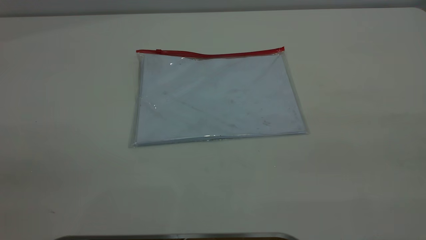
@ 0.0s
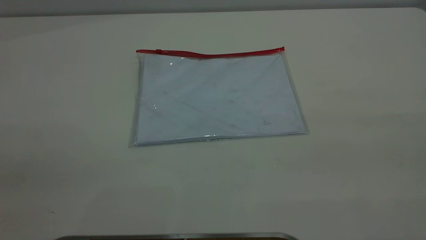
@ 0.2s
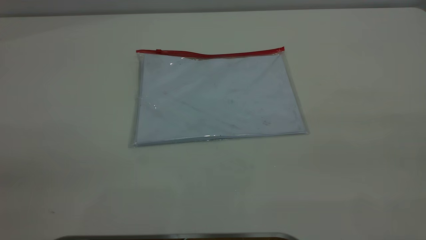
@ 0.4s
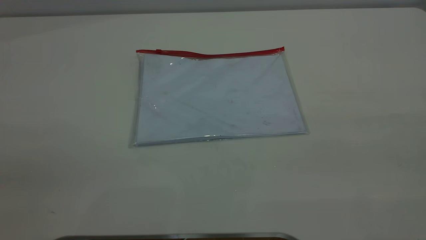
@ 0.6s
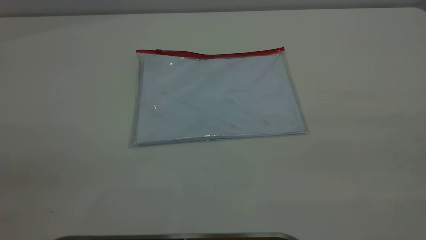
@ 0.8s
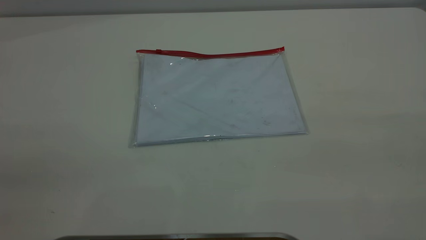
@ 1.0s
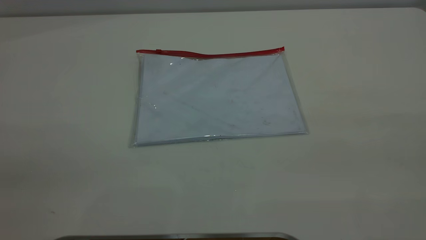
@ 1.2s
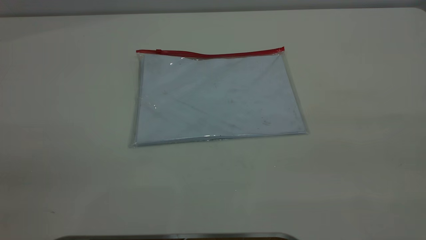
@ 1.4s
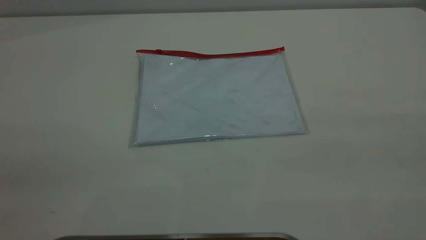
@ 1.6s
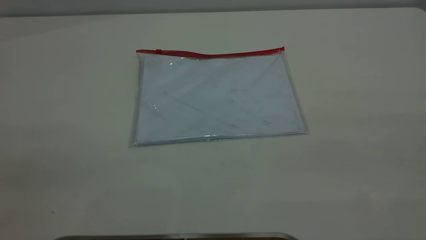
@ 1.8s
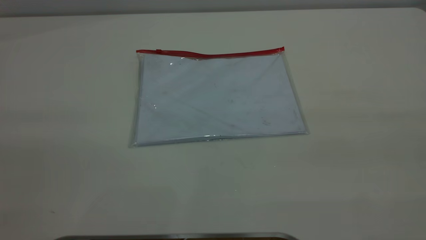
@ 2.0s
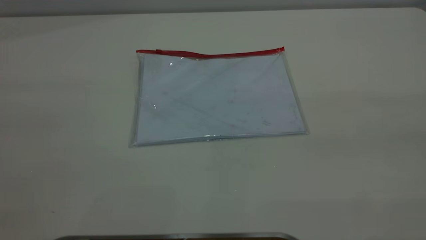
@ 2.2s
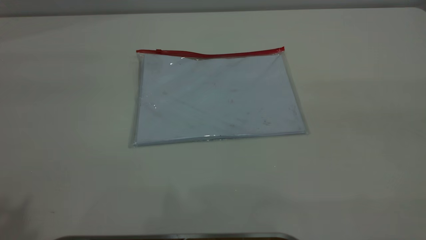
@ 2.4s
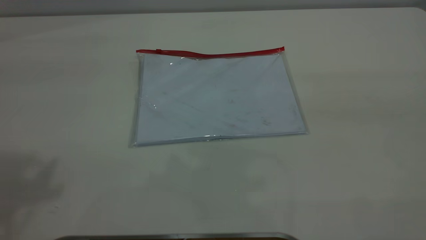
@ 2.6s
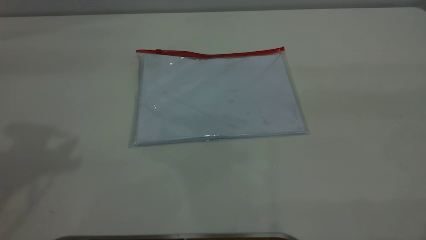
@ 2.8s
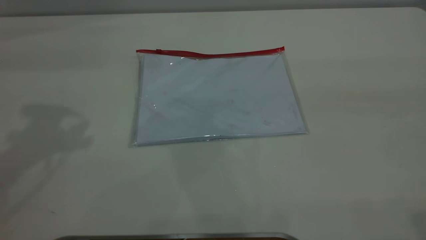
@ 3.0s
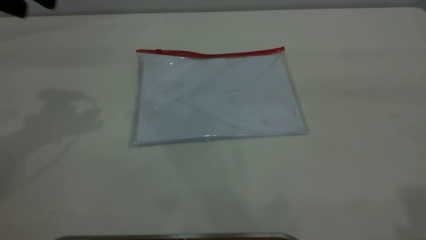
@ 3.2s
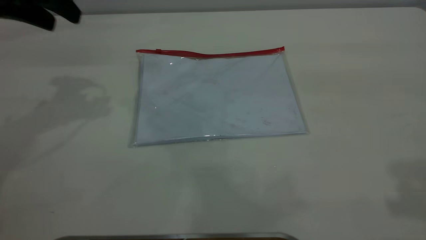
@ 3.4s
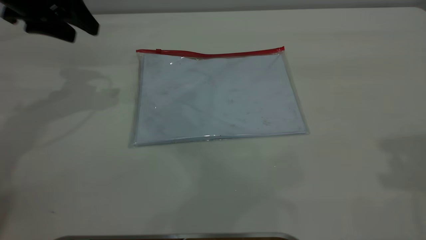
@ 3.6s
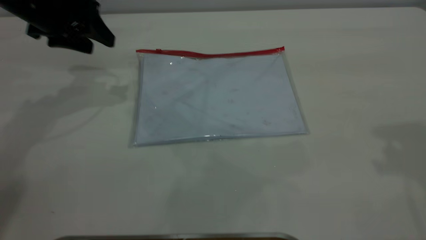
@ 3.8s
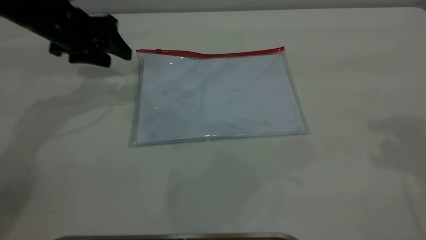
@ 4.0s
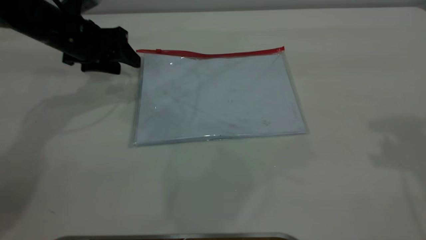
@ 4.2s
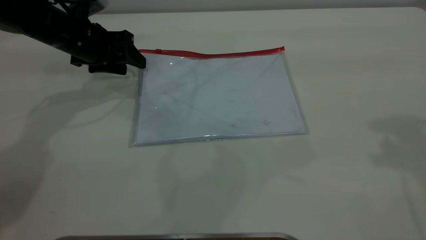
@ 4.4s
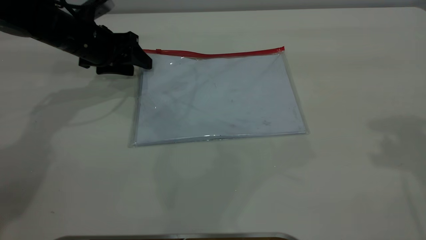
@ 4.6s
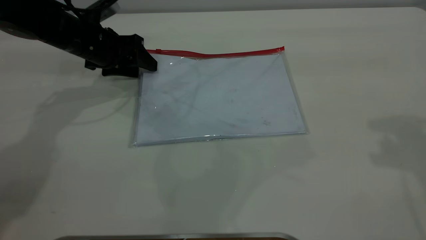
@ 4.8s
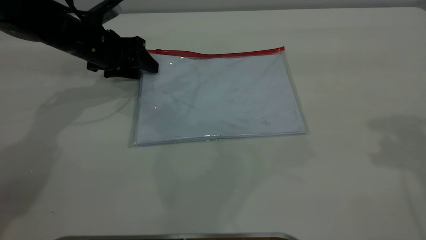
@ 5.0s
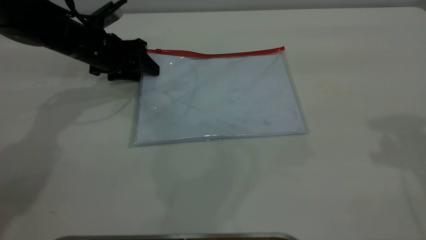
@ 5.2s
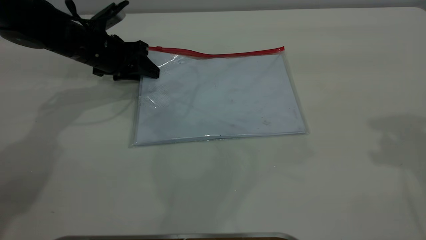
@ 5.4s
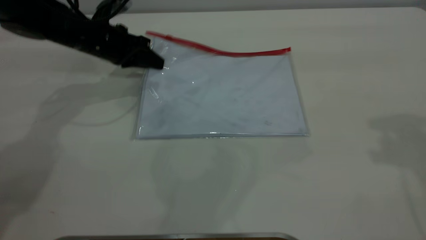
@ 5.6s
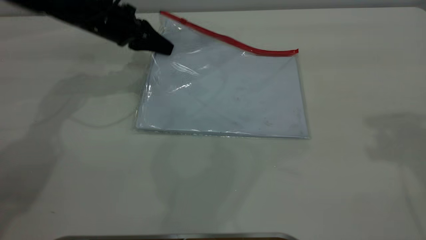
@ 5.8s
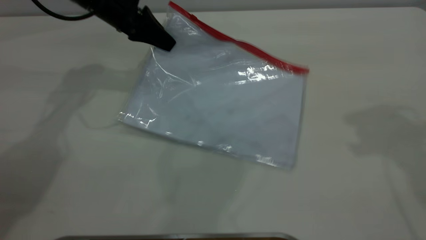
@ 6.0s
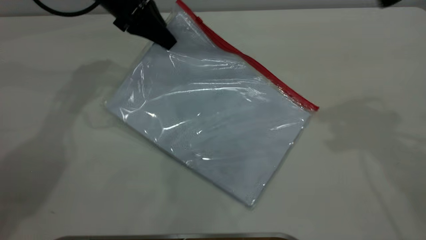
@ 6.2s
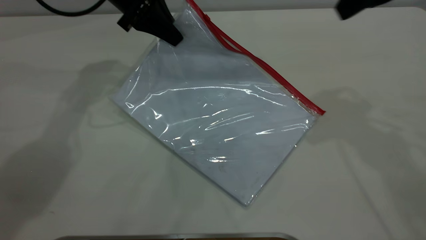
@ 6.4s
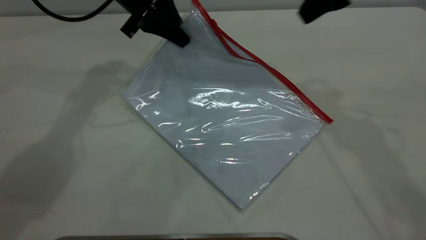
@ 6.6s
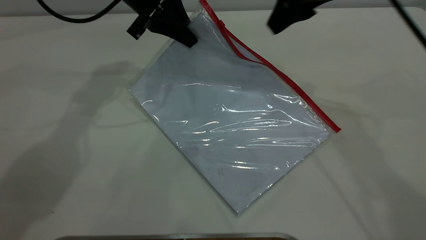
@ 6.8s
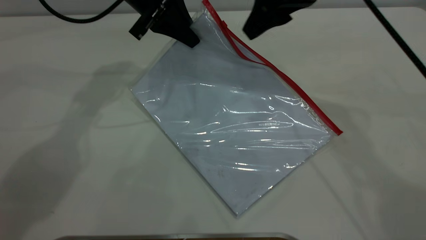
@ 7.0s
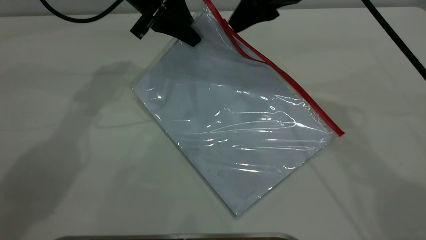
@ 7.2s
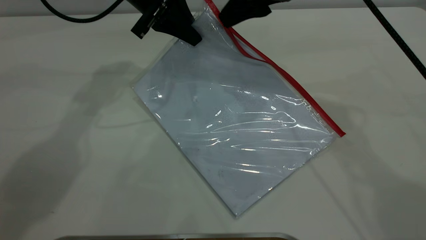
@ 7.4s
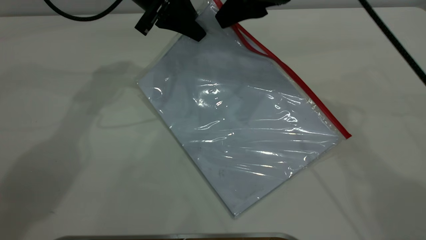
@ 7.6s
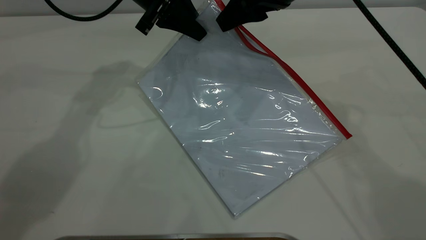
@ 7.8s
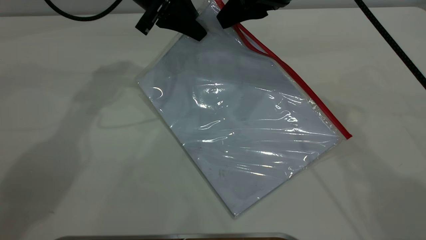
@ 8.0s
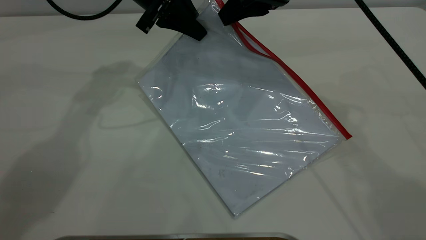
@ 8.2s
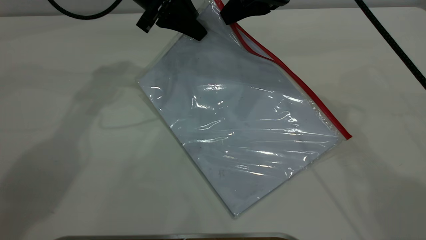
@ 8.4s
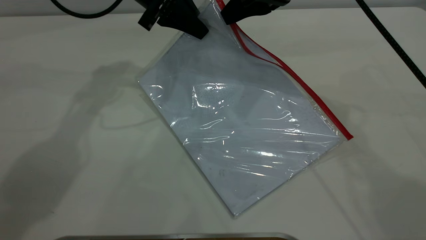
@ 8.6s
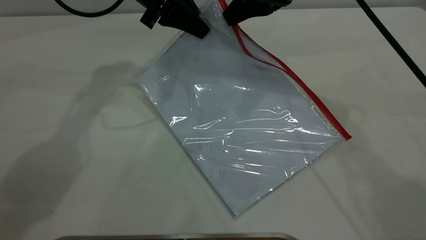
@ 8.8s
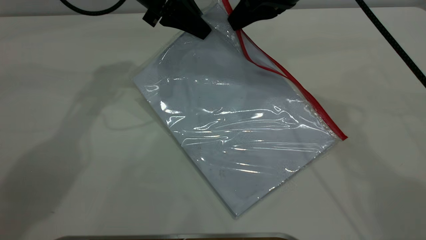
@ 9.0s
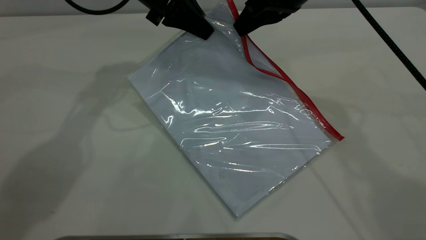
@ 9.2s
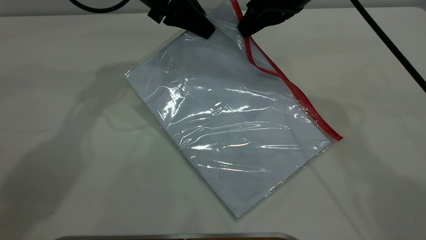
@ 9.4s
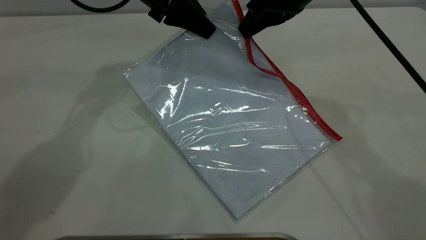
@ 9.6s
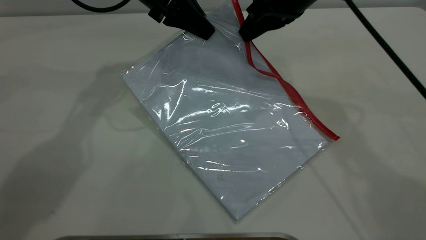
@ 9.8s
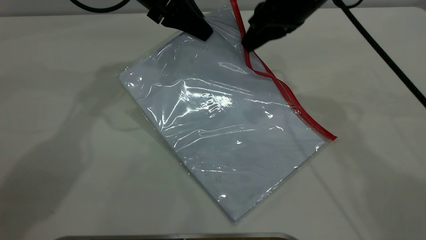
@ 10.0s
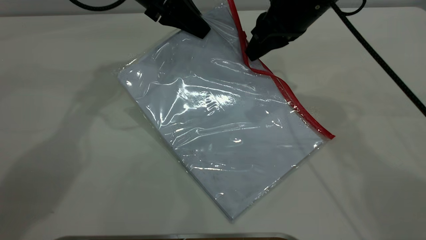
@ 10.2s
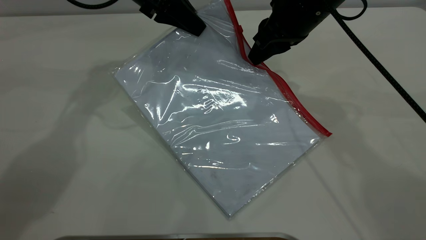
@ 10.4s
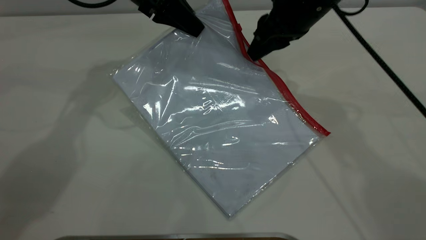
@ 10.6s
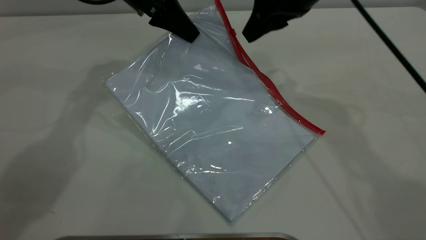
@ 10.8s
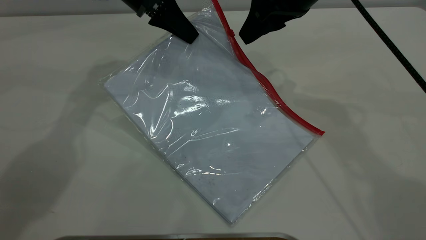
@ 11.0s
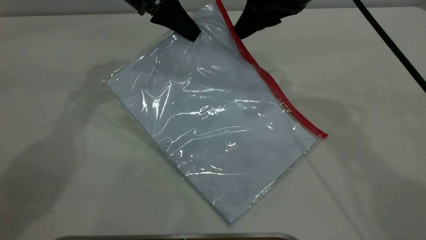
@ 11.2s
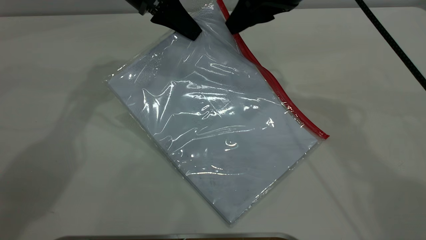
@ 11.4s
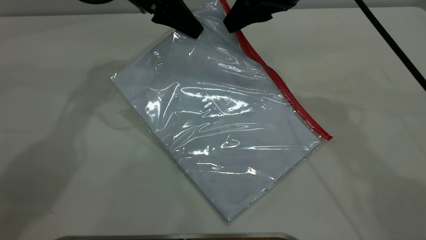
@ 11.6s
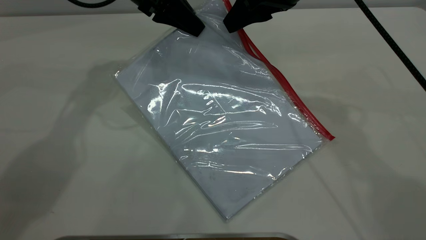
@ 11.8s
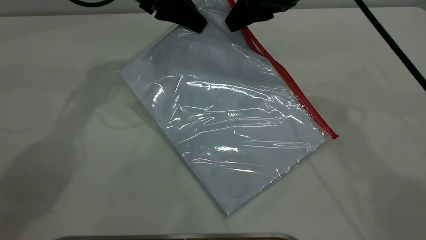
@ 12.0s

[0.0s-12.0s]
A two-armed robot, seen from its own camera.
Step, 0.0s to 5.8s: Pick up the transparent plastic bag with the left gripper.
0.0s to 1.6s: Both grippers stay put.
3.0s to 4.4s: The left gripper shifts about 25 cm downward and forward.
4.4s to 6.0s: The left gripper goes about 10 cm to the right and upward, and closes up.
6.0s to 7.6s: The right gripper heads to the left, downward and forward, covering about 20 cm. Meanwhile the left gripper goes some 5 cm to the right.
7.6s to 9.0s: The right gripper closes.
9.0s to 10.4s: The grippers move only a little.
10.4s to 12.0s: The grippers move only a little.

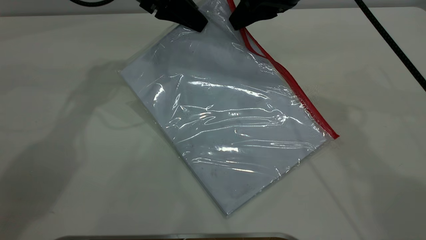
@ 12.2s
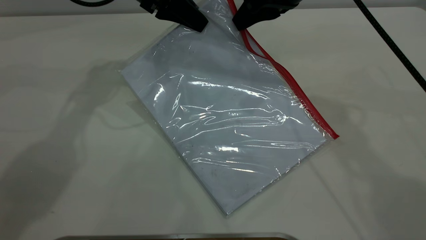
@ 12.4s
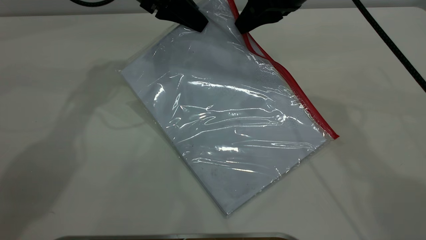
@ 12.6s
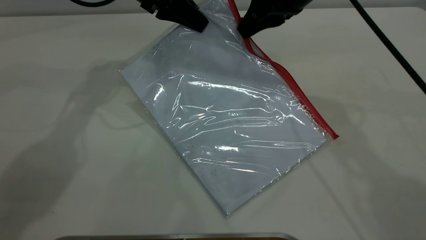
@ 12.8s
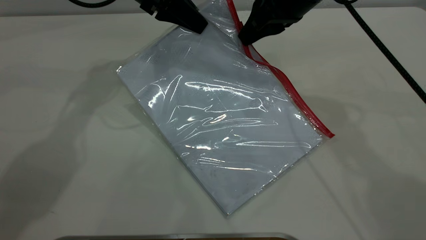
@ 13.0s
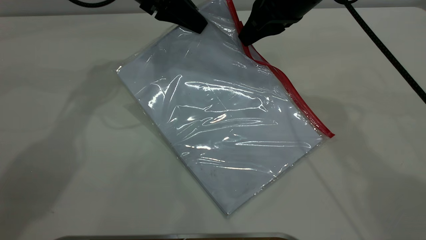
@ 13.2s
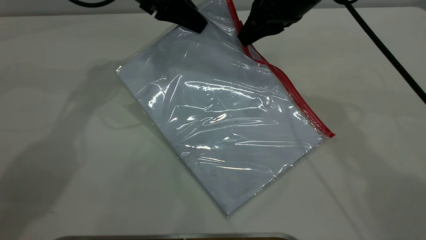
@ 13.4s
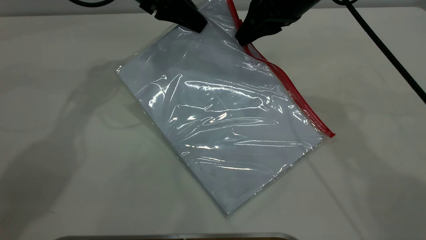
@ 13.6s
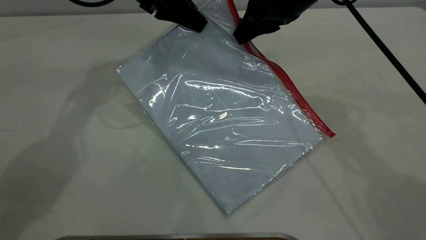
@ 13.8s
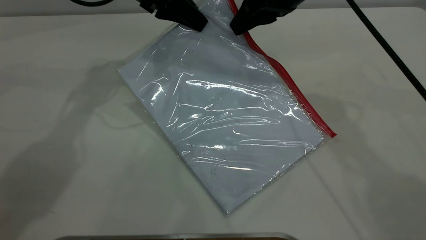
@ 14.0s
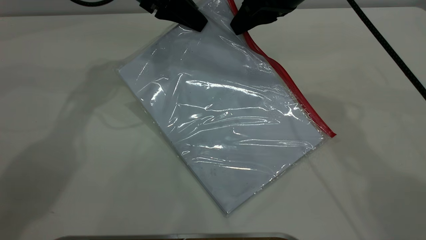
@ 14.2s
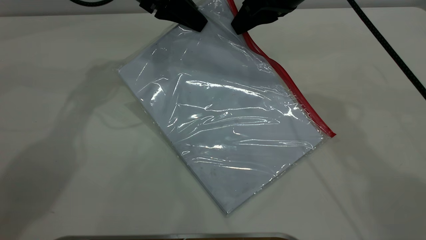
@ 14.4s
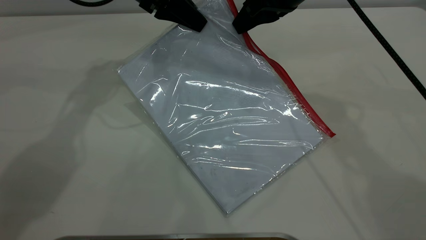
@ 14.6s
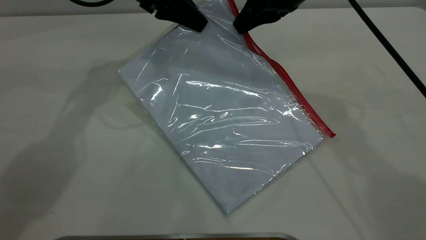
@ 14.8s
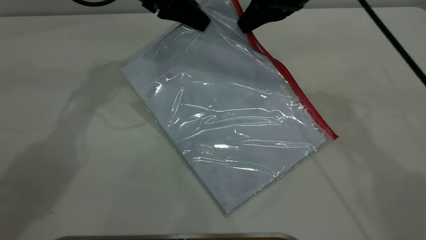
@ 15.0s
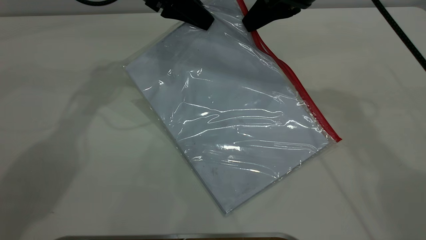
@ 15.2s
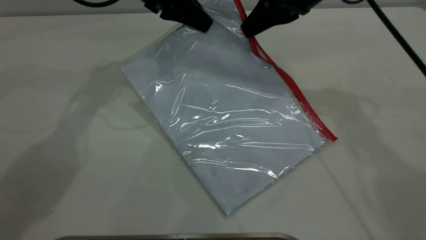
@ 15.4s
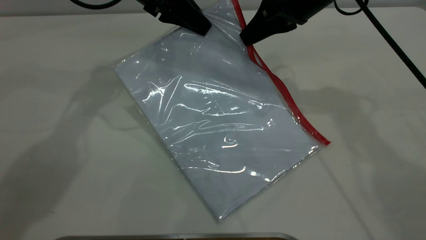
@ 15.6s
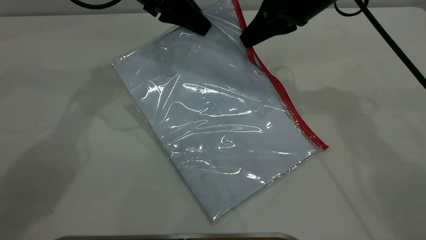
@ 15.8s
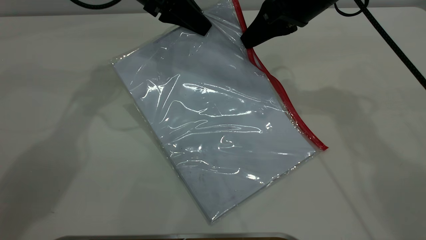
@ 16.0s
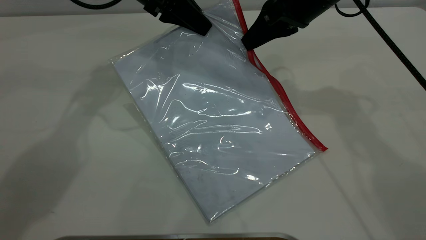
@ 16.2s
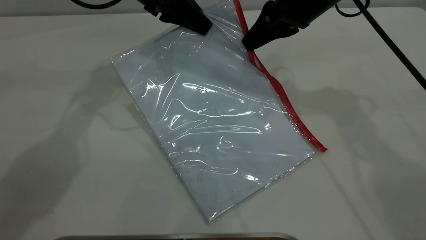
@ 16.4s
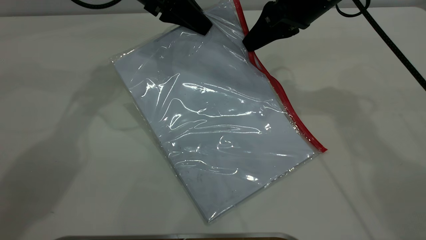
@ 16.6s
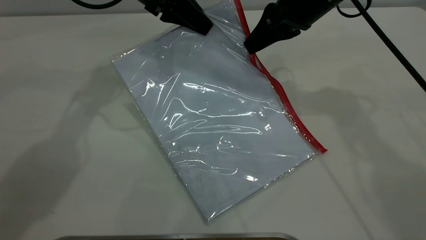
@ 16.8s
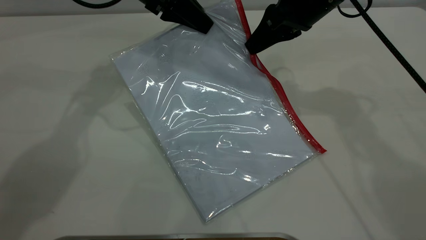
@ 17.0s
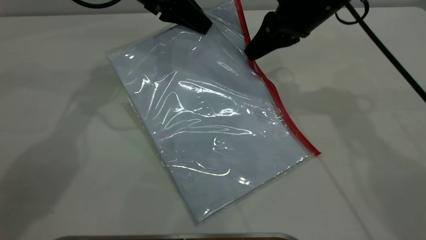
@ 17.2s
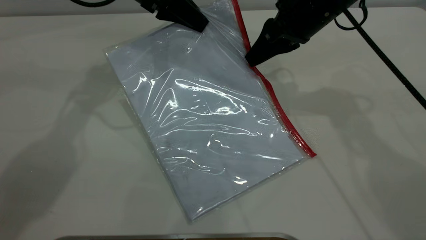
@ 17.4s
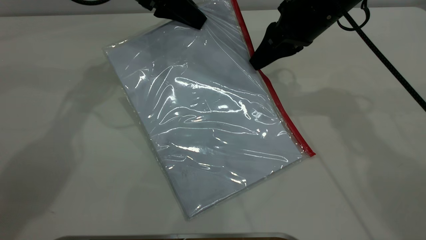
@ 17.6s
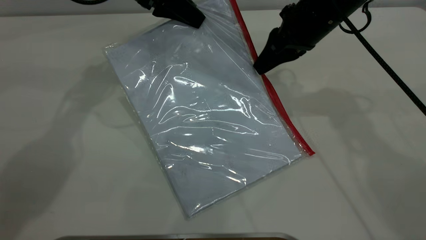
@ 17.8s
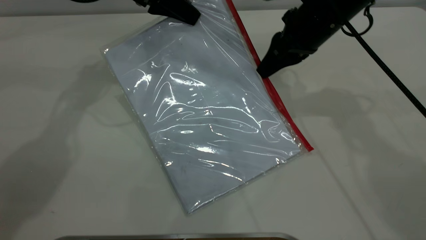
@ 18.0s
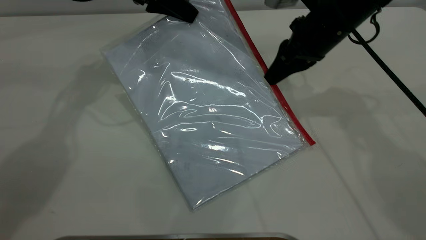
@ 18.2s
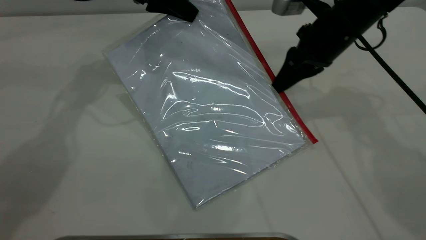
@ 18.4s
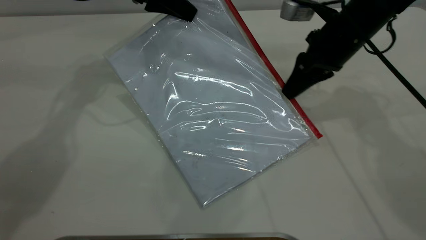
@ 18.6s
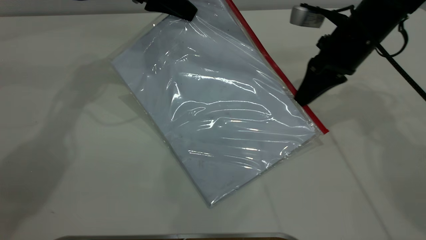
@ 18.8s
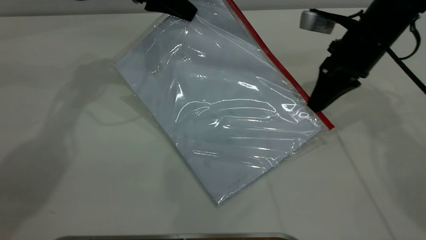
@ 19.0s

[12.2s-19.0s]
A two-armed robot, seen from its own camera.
12.2s to 13.6s: There are only small adjustments of the grippers.
13.6s to 15.0s: The right gripper closes its fingers.
15.0s to 17.6s: There are only small adjustments of the grippers.
17.6s to 19.0s: The right gripper shifts some 5 cm to the right.
